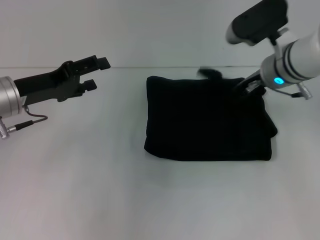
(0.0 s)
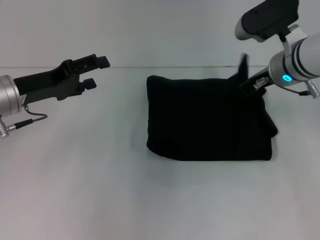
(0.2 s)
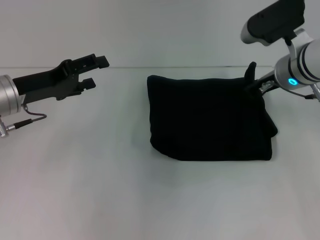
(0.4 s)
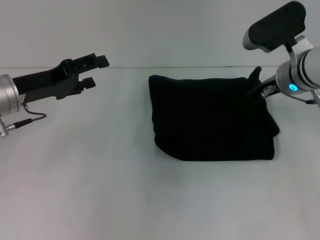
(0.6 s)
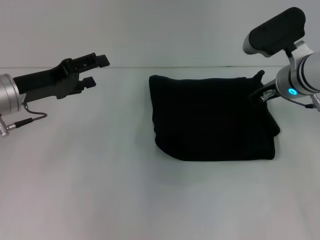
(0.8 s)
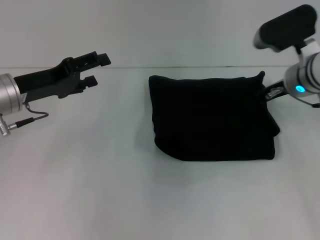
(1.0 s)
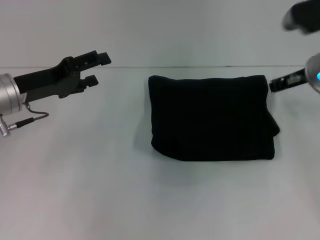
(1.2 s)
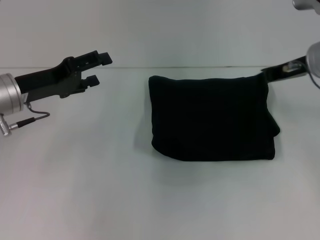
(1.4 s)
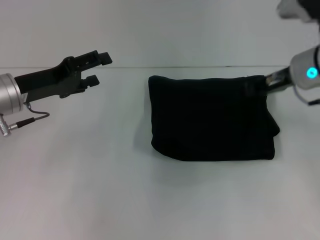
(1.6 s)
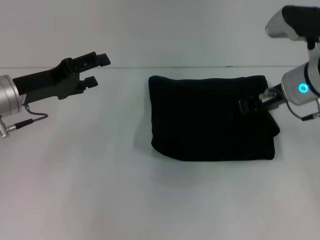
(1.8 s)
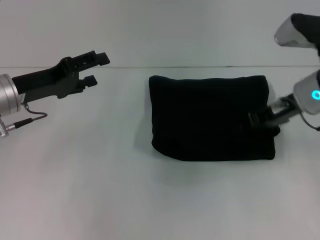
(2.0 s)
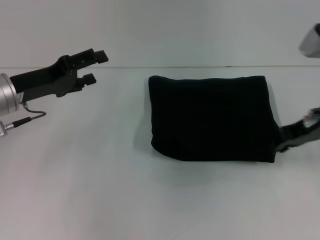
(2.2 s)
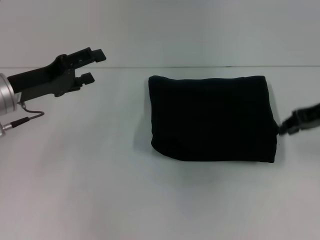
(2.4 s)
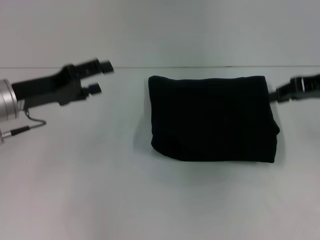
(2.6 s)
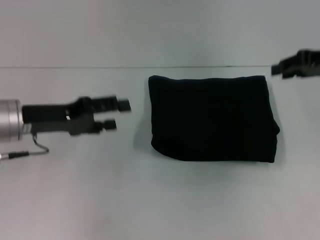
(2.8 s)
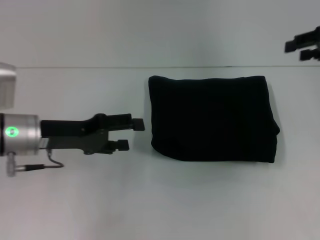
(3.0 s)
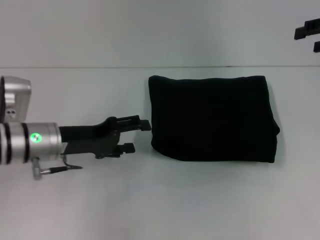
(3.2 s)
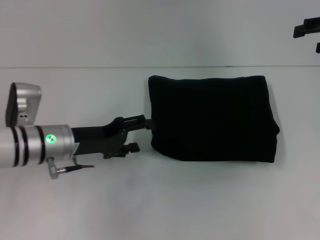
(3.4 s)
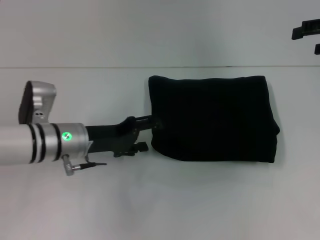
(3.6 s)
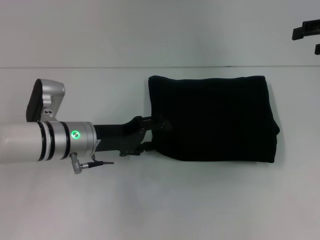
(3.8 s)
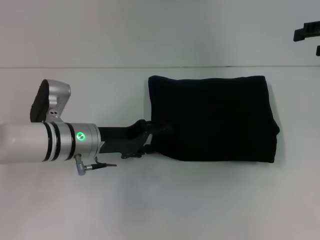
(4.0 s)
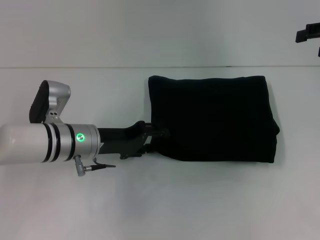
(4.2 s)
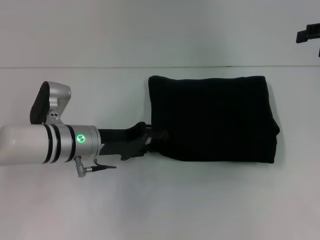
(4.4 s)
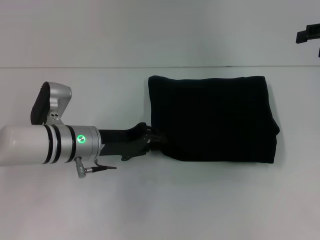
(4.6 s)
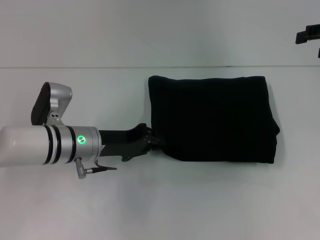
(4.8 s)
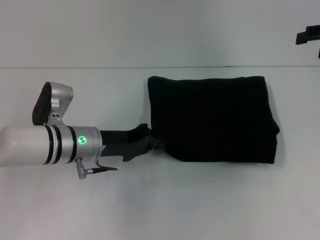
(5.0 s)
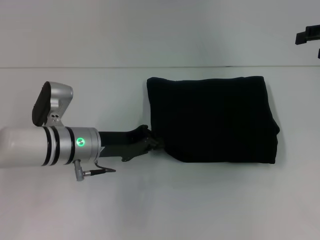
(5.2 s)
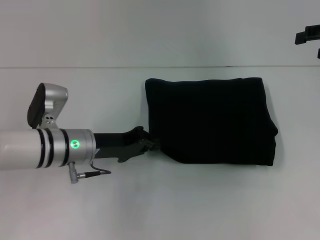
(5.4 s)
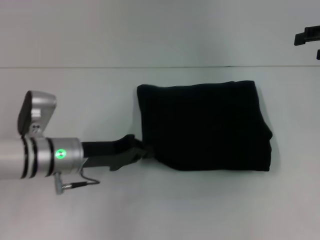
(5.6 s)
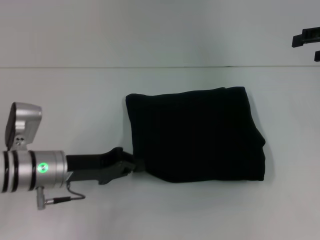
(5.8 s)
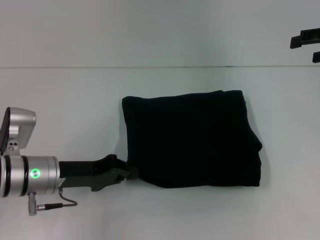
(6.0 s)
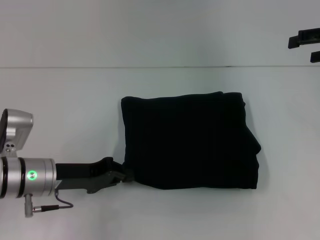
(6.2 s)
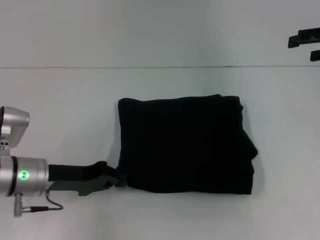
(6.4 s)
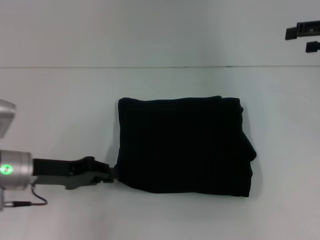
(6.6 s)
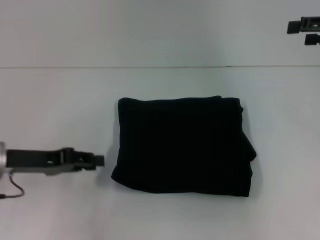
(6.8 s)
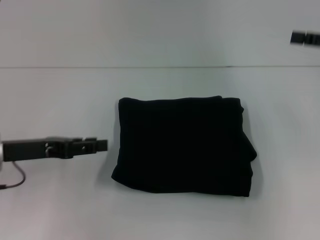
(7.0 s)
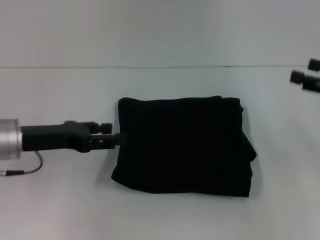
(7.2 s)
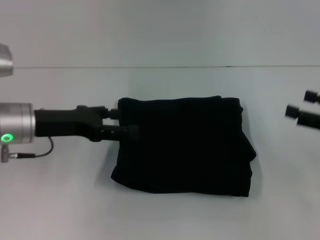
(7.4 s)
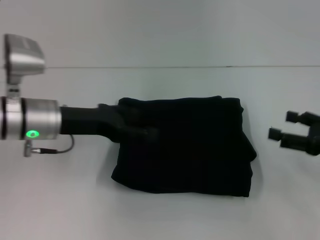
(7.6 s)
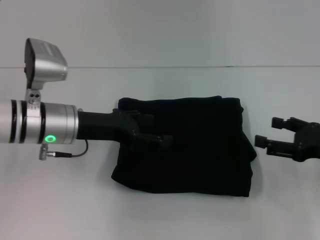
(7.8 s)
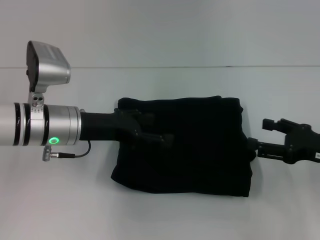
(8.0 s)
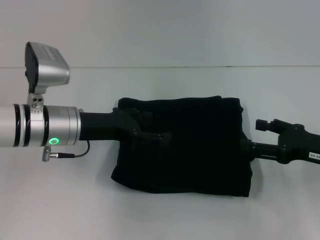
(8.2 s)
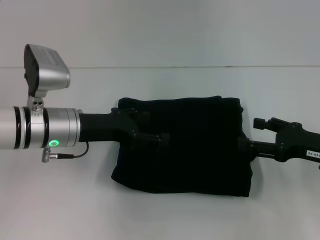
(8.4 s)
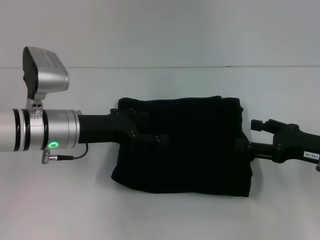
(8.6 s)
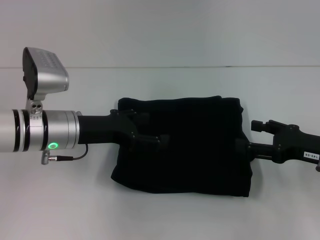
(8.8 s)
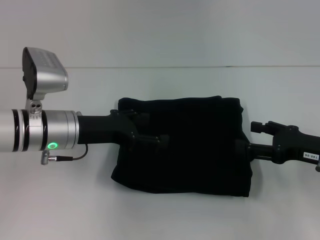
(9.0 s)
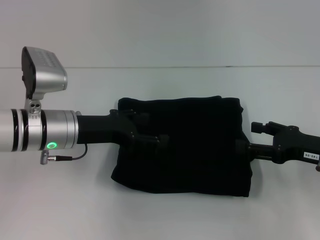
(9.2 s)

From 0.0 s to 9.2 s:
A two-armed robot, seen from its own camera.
From 0.0 s to 1.6 s: The right gripper moves about 5 cm.
From 1.6 s to 3.0 s: The right gripper travels to the right and upward by approximately 15 cm.
From 3.0 s to 4.6 s: The left gripper heads to the right and downward, covering roughly 10 cm, and closes up. The right gripper opens up.
From 4.6 s to 6.2 s: The left gripper is displaced to the left and backward by some 10 cm, and closes.
From 6.2 s to 7.6 s: The left gripper is displaced upward by roughly 5 cm, and opens up. The right gripper travels downward and backward by approximately 20 cm.
From 7.6 s to 9.2 s: The grippers make only small movements.

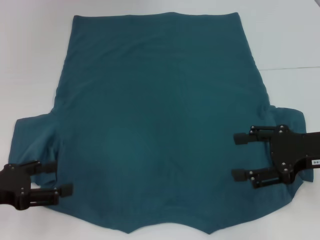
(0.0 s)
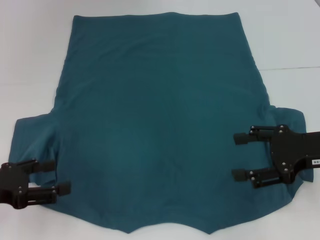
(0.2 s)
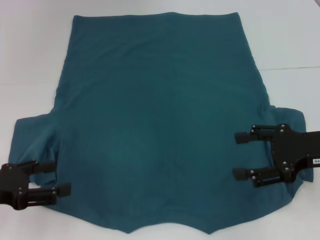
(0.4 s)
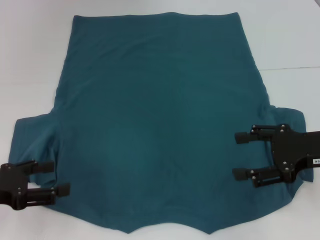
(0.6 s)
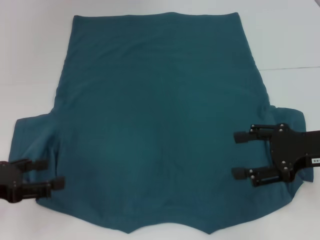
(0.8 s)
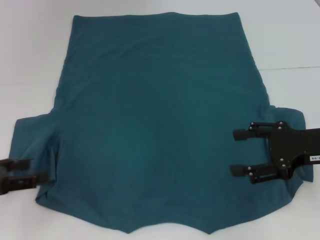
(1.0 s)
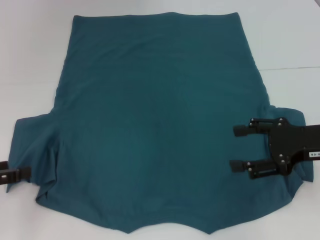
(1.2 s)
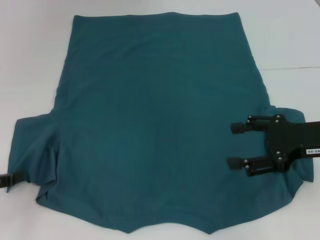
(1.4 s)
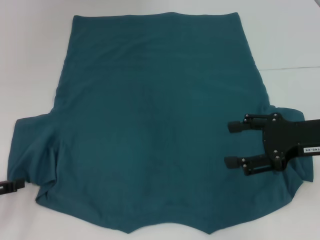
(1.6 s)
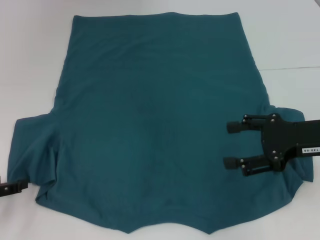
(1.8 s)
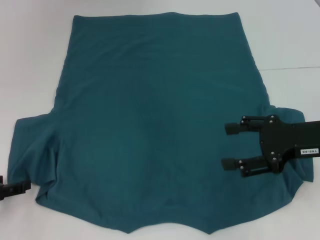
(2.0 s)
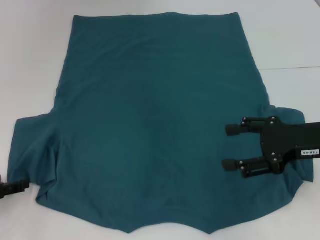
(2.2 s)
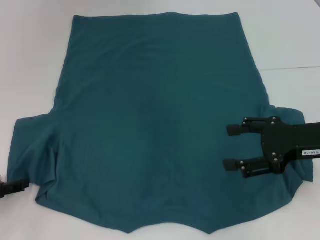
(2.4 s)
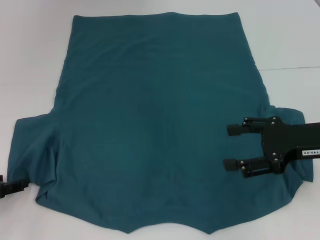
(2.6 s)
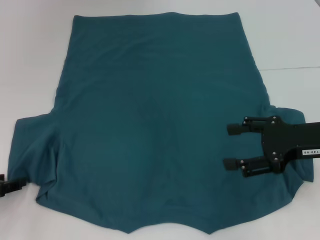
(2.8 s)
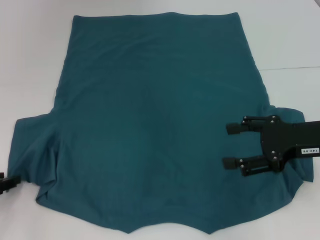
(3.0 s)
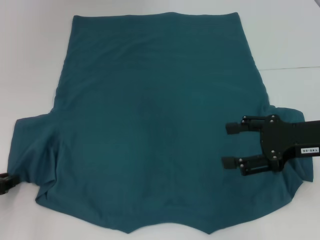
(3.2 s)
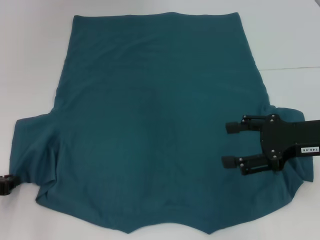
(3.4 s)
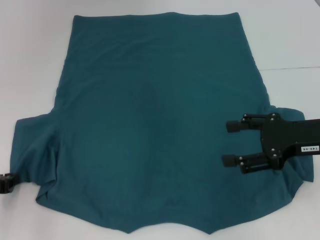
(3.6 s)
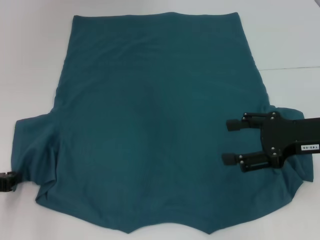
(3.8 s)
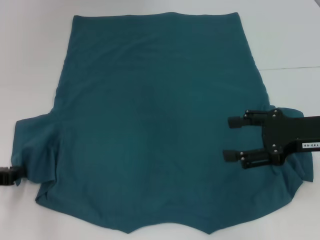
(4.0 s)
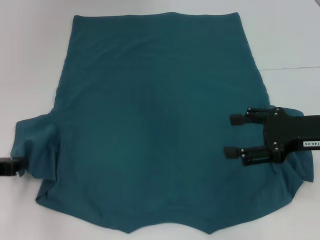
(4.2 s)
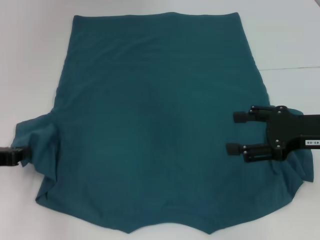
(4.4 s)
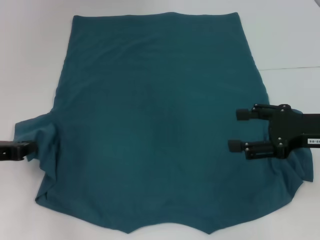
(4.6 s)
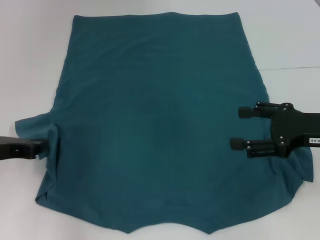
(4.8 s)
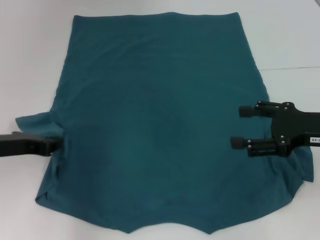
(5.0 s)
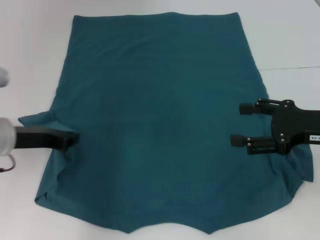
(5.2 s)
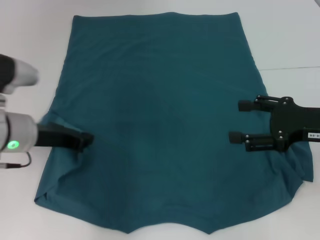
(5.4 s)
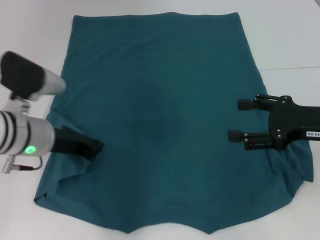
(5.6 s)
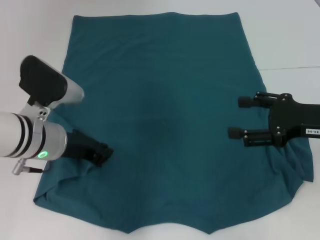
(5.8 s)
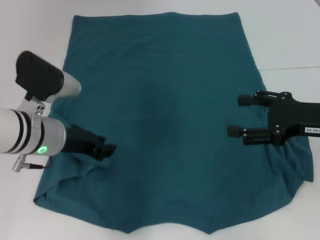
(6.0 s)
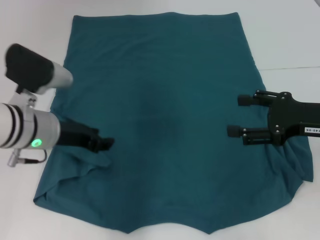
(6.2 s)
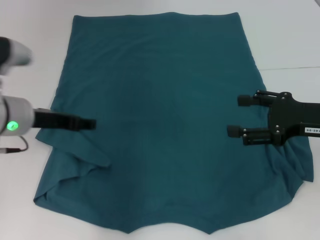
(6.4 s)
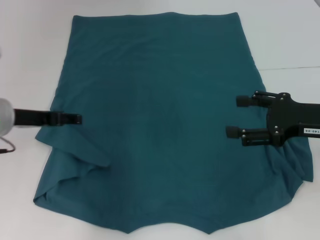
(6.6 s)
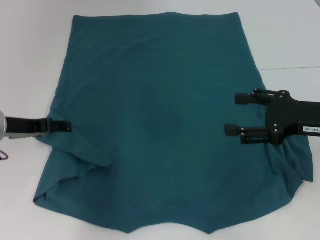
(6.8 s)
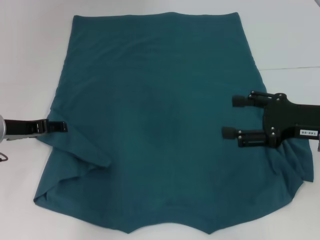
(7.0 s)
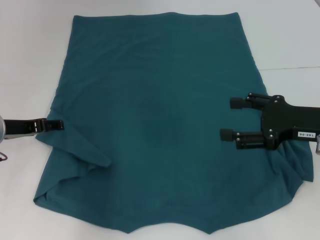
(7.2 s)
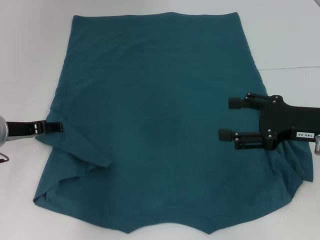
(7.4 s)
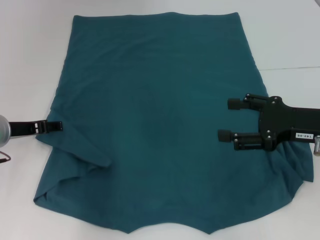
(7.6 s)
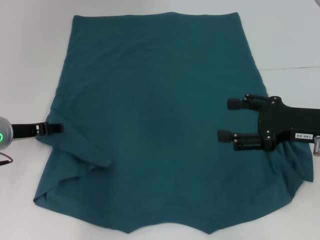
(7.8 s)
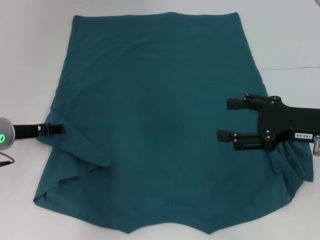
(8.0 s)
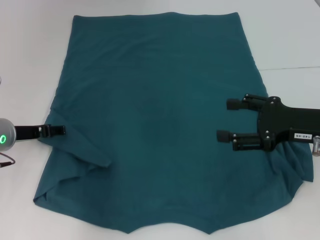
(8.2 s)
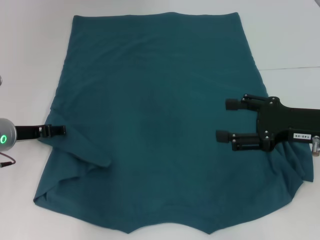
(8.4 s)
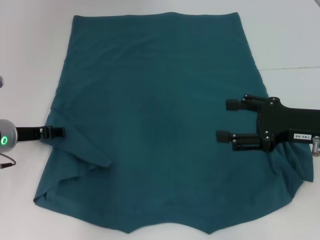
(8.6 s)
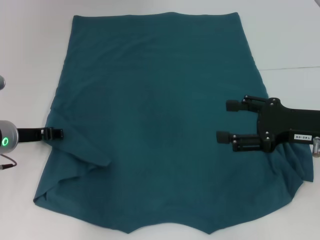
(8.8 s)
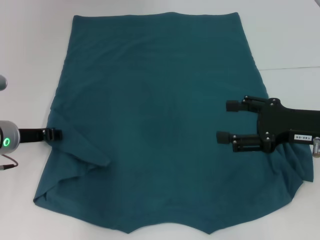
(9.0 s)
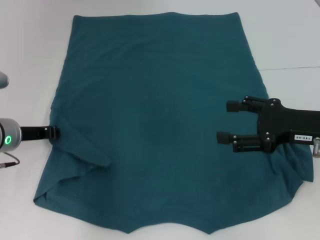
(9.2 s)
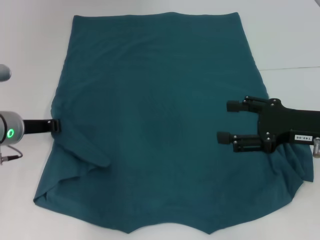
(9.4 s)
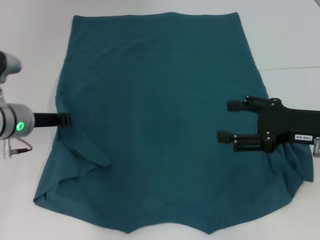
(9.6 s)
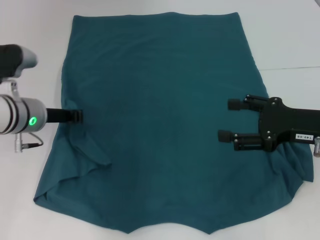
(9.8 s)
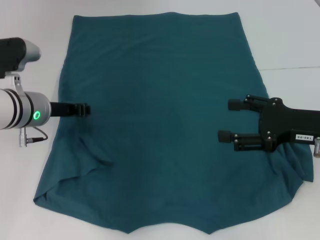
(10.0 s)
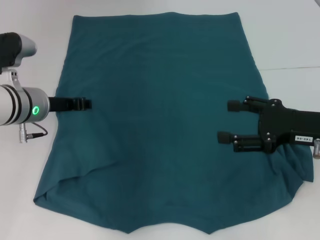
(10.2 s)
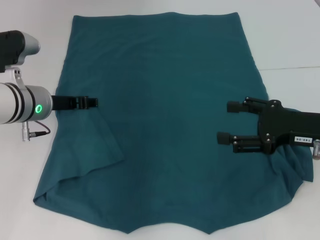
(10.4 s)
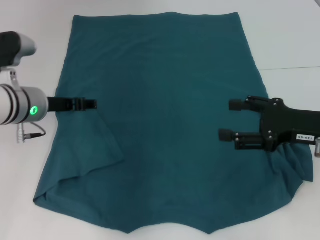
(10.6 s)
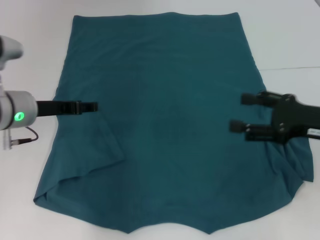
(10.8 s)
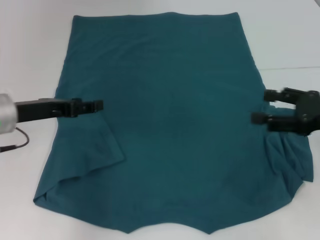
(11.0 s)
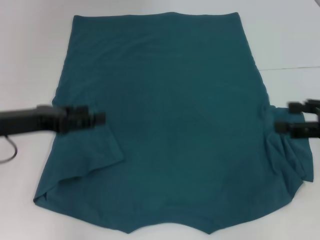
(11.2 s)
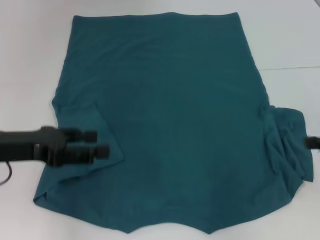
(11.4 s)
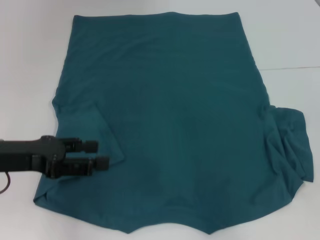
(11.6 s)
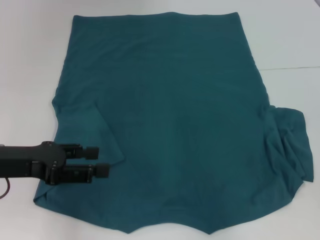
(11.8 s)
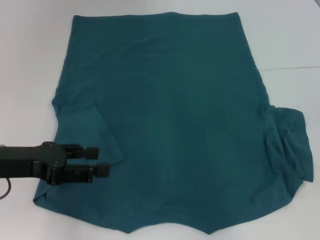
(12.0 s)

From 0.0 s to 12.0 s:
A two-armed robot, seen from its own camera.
Step, from 0.0 s to 10.6 s: Fold the bottom left sleeve with your left hand.
From 1.6 s to 3.0 s: There are only small adjustments of the grippers.
From 3.0 s to 4.4 s: The left gripper ends up approximately 5 cm from where it was, and closes up.
From 4.4 s to 6.0 s: The left gripper heads to the right, covering some 15 cm.
From 6.0 s to 7.6 s: The left gripper goes some 10 cm to the left, and opens.
From 7.6 s to 9.0 s: There are only small adjustments of the grippers.
From 9.0 s to 10.4 s: The left gripper heads to the right, covering some 5 cm, and closes up.
From 10.4 s to 12.0 s: The left gripper shifts approximately 15 cm backward and to the left, and opens up; the right gripper goes about 10 cm to the right and upward.

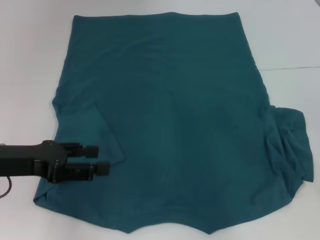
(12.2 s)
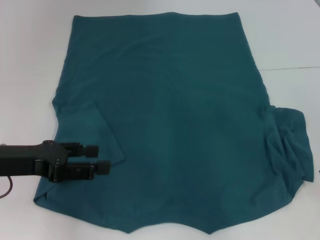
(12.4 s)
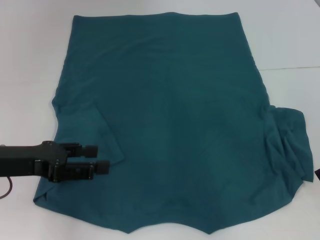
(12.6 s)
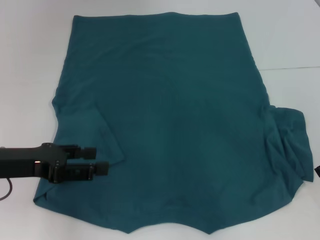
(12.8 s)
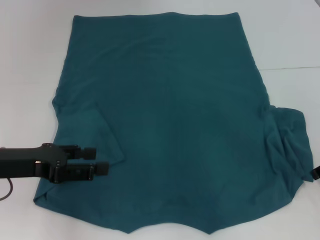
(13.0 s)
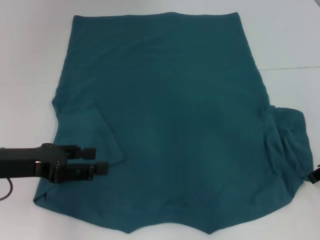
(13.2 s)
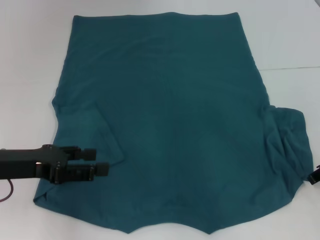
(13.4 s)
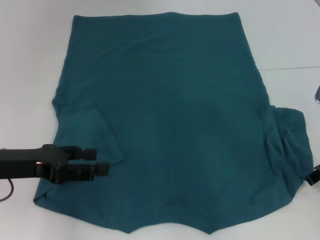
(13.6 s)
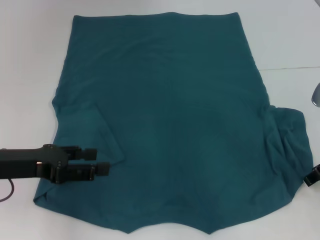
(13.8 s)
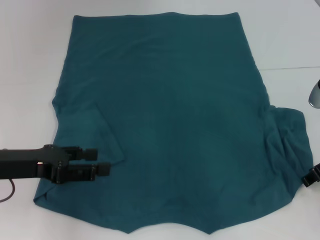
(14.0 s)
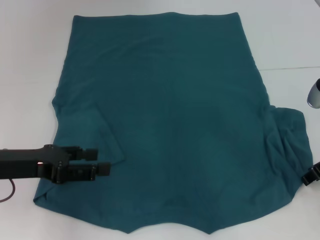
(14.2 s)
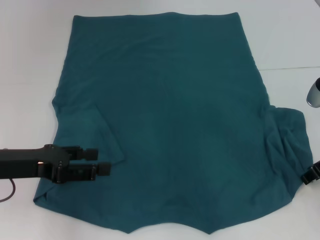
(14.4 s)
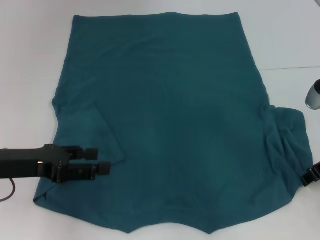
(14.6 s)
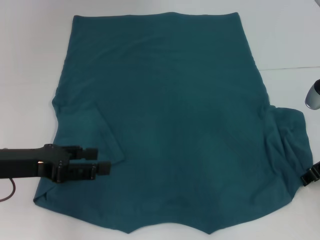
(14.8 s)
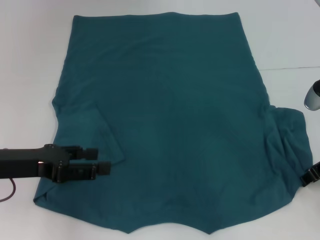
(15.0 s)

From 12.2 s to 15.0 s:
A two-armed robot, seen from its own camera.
From 13.6 s to 15.0 s: The grippers move only a little.
